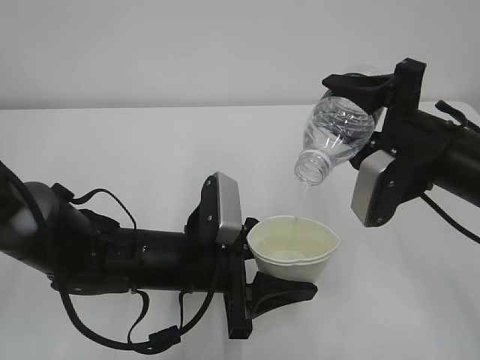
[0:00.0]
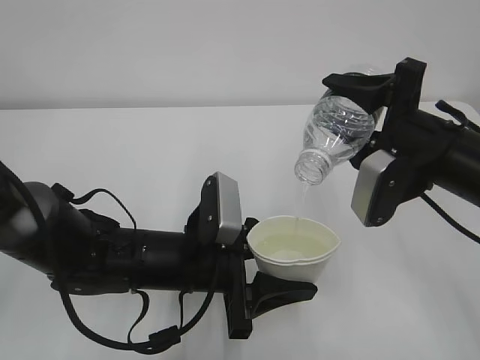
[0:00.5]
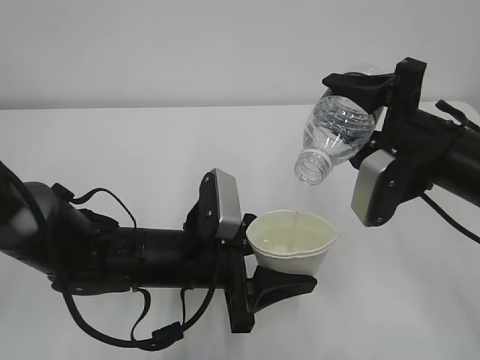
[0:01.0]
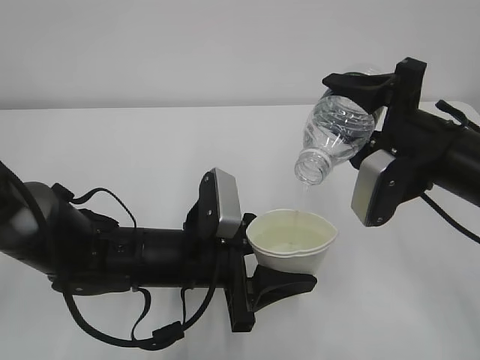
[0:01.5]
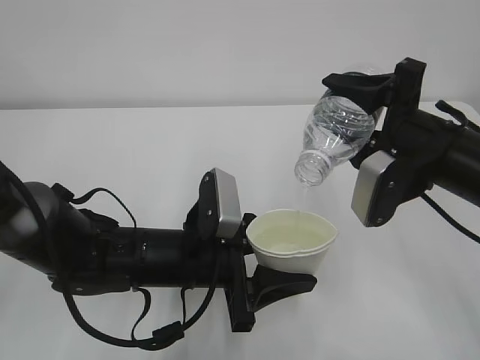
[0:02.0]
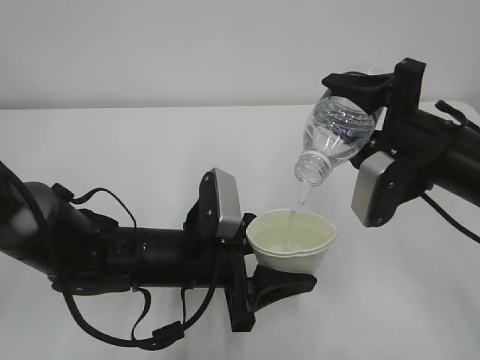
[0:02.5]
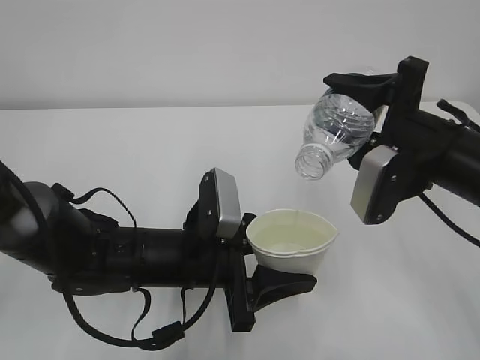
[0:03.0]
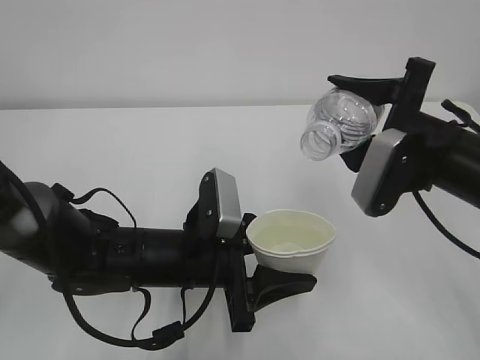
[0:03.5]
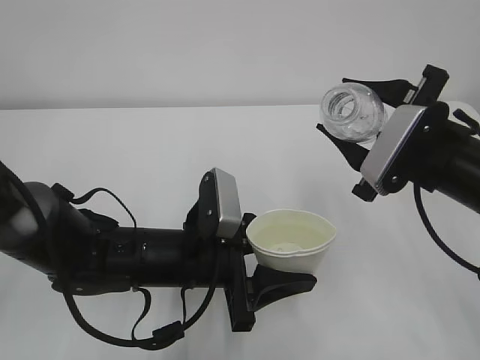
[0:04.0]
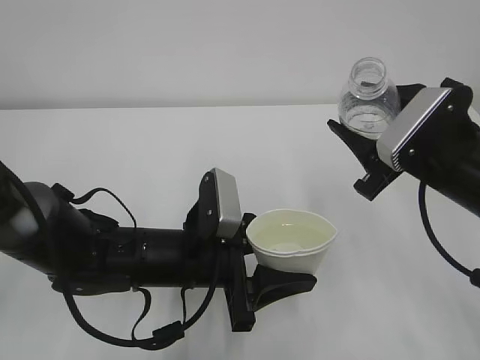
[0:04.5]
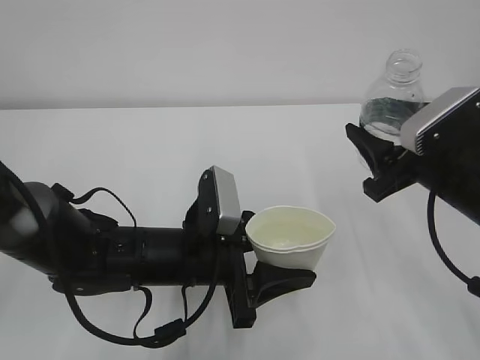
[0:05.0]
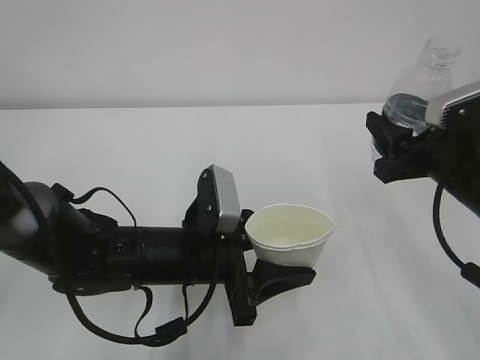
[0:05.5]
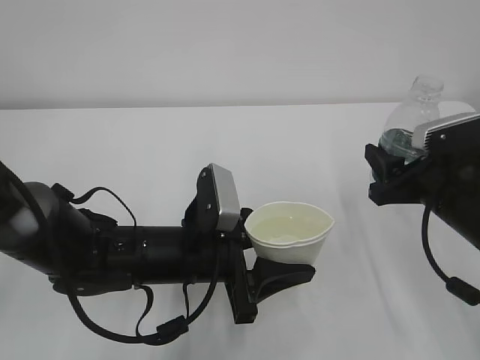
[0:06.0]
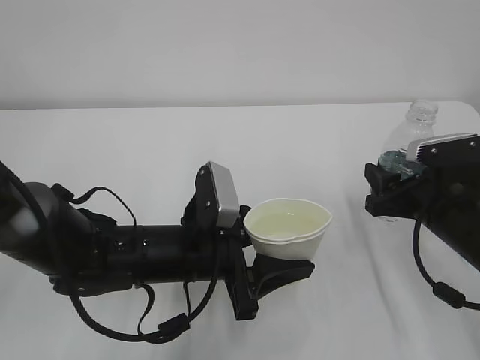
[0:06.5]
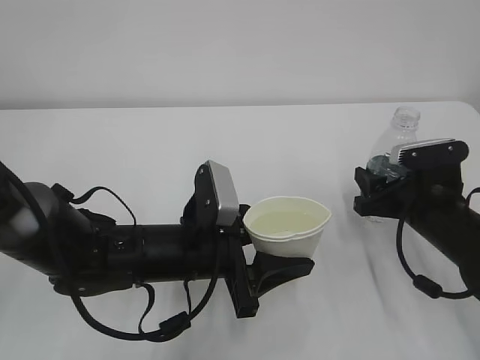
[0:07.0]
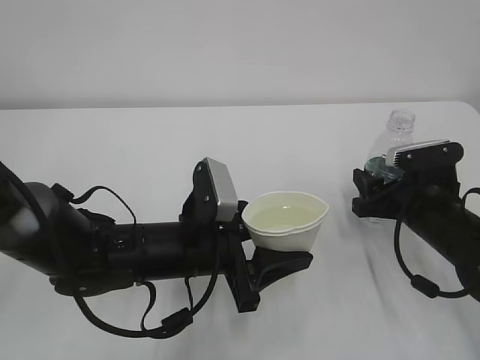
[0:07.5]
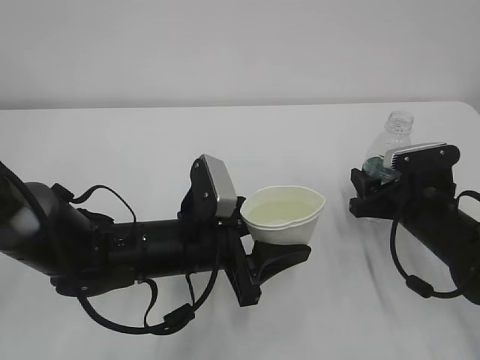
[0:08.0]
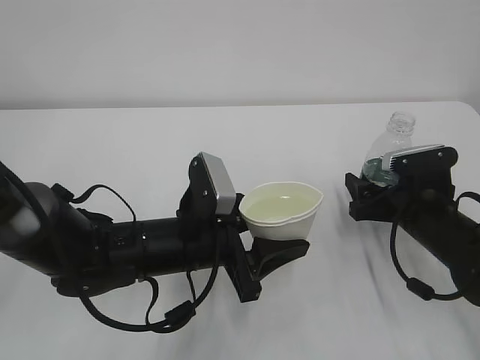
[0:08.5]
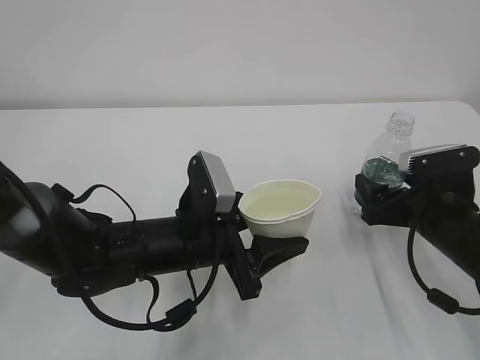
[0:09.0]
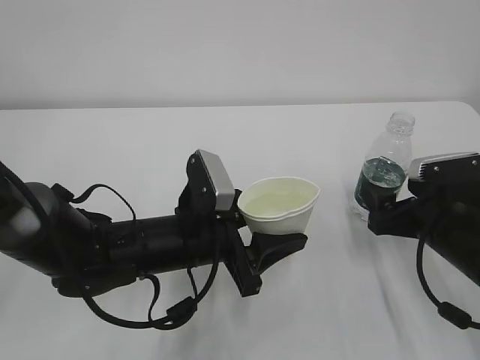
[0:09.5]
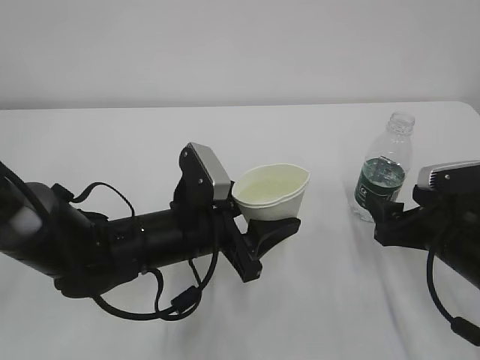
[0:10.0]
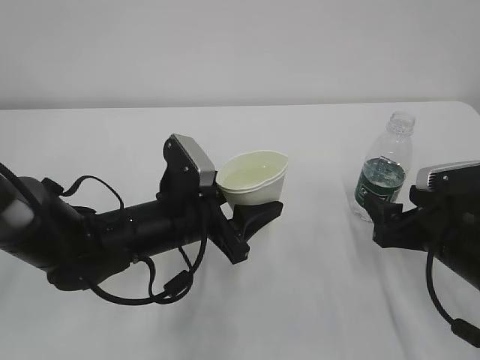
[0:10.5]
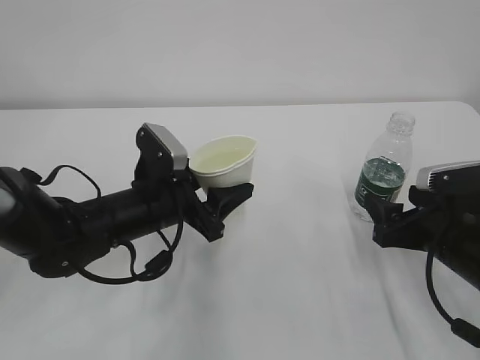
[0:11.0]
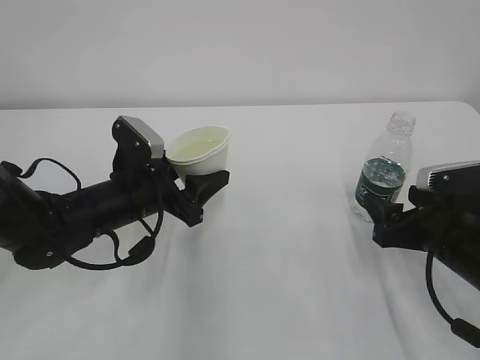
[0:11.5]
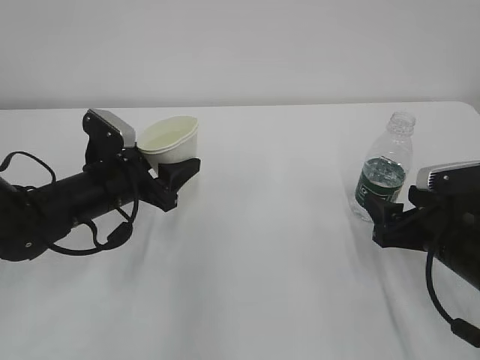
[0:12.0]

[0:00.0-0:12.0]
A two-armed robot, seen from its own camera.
0:00.0 to 0:02.0: Both grippers stay put.
0:04.0 to 0:06.0: The right gripper shifts roughly 5 cm downward.
0:06.0 to 0:08.0: The right gripper travels downward by roughly 5 cm.
0:08.0 to 0:10.0: The right gripper heads backward, covering roughly 5 cm, and opens.
0:10.0 to 0:12.0: The left gripper travels to the left and forward by roughly 15 cm.

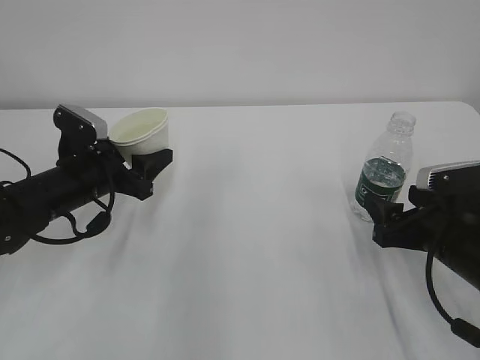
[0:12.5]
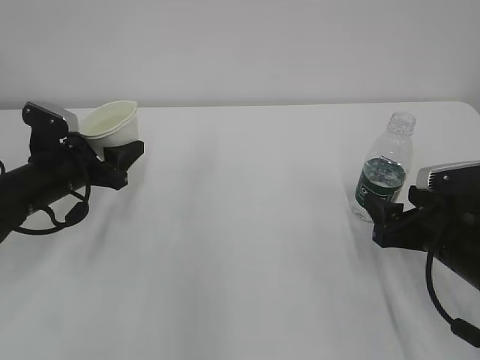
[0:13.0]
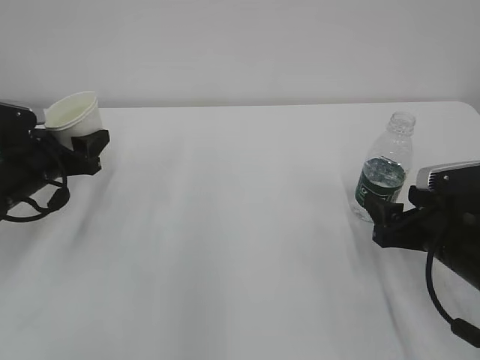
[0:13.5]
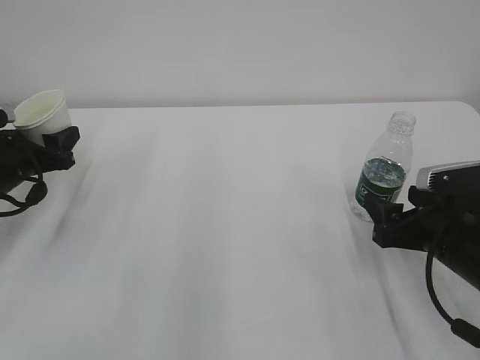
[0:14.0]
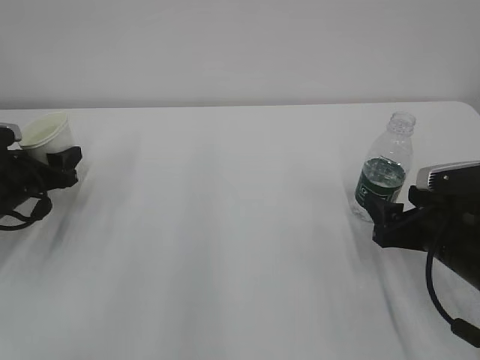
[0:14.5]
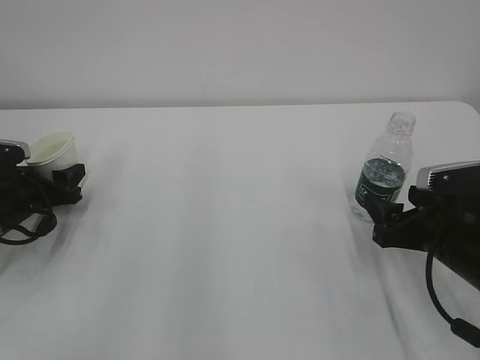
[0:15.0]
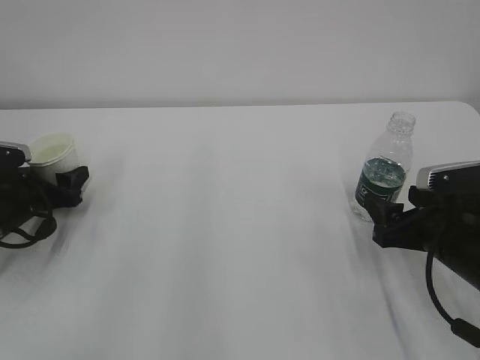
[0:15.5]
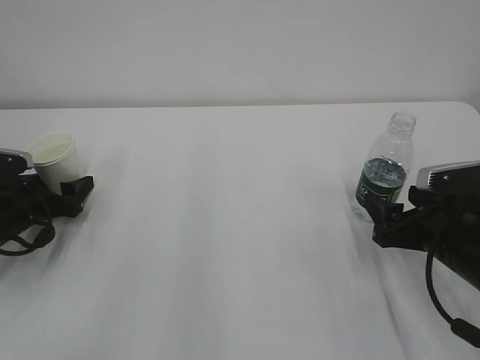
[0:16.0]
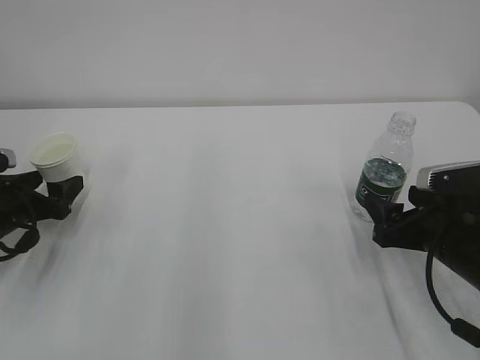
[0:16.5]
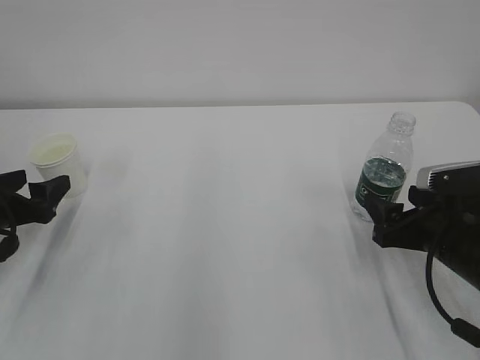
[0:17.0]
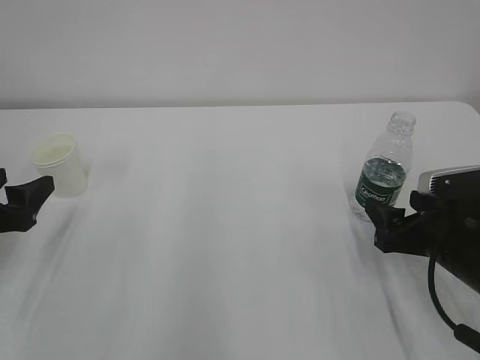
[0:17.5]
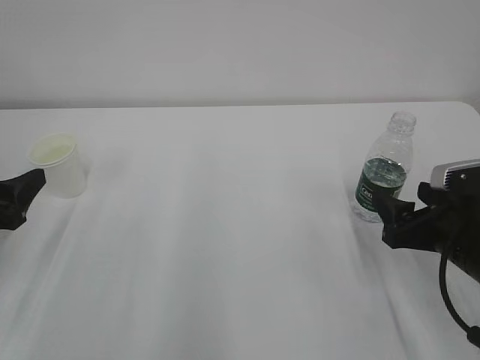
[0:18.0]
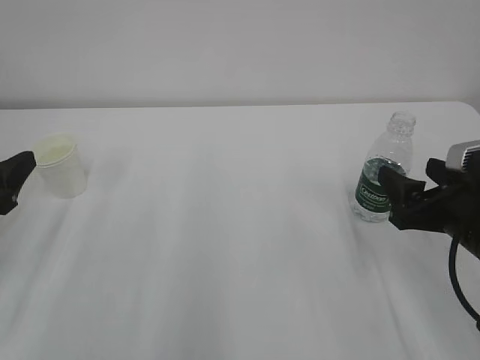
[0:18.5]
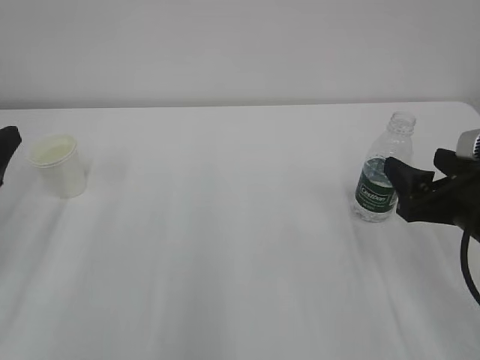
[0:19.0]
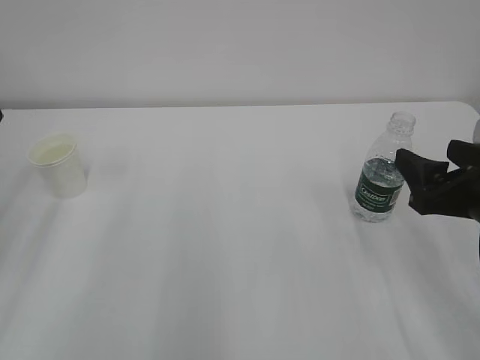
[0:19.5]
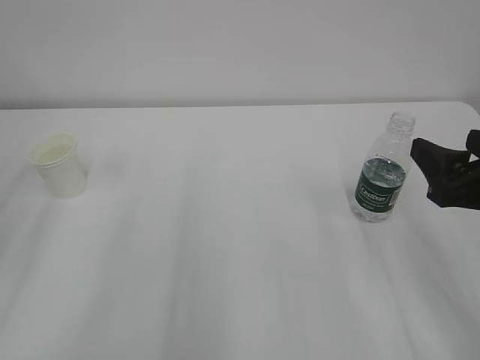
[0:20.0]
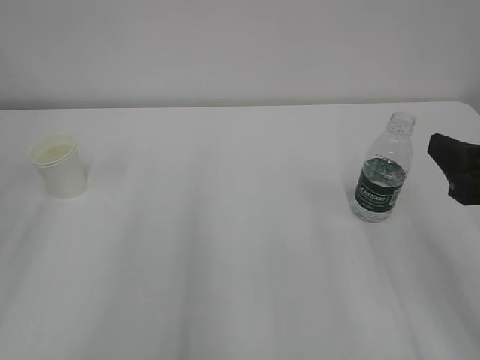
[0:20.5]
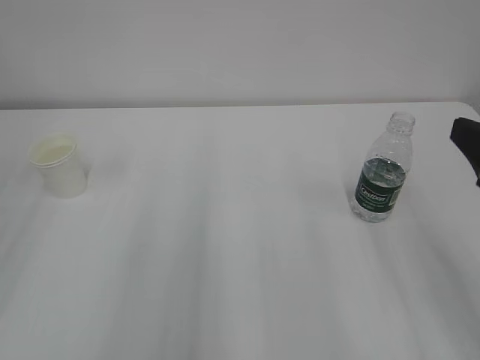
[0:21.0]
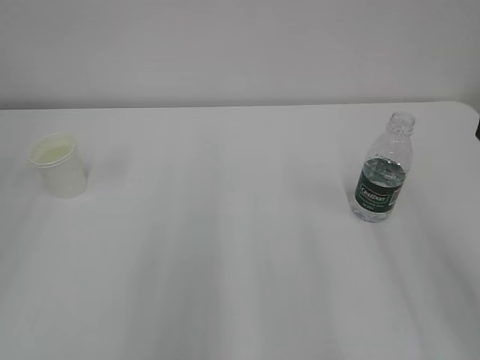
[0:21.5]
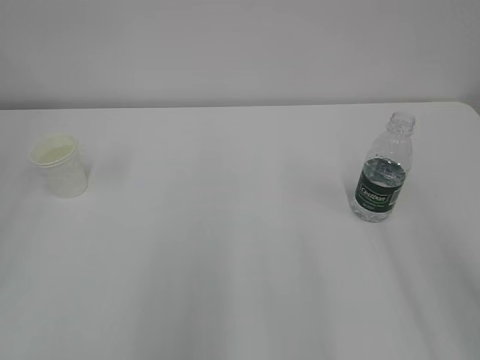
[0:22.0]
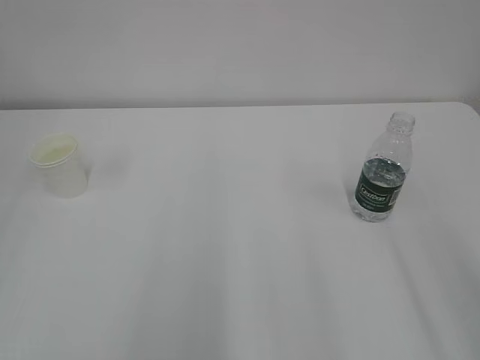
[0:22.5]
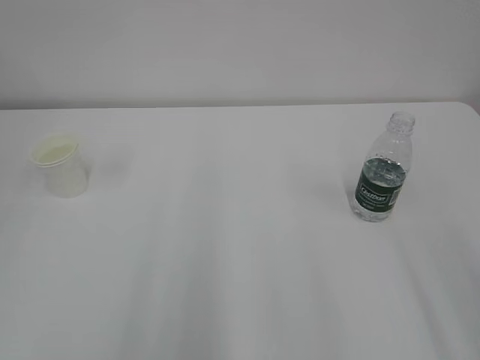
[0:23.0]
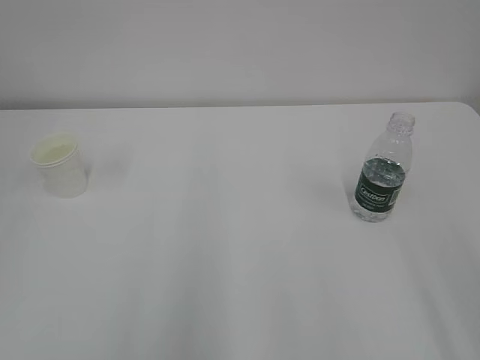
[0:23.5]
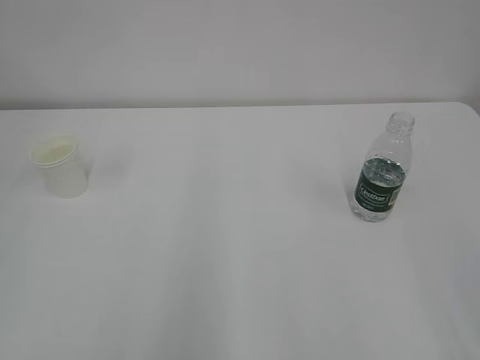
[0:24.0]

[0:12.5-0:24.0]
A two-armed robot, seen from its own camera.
0:12.5 to 0:14.5: The left gripper is displaced to the left by some 10 cm.
0:14.5 to 0:16.5: The left gripper opens its fingers.
0:16.5 to 0:18.5: The left gripper is displaced upward and backward by some 15 cm.
0:18.5 to 0:20.0: The grippers both shift upward by approximately 5 cm.
0:20.0 to 0:22.0: The right gripper heads backward and upward, covering roughly 10 cm.

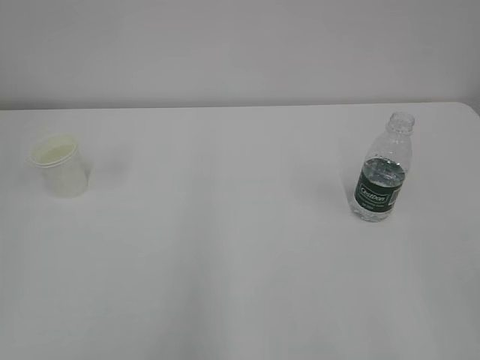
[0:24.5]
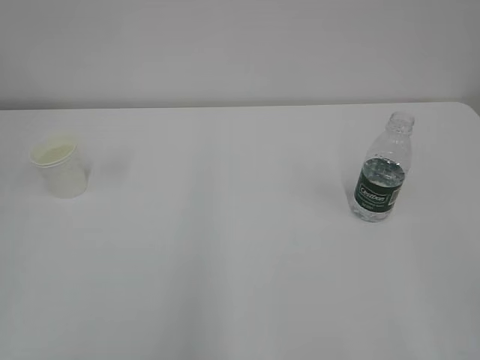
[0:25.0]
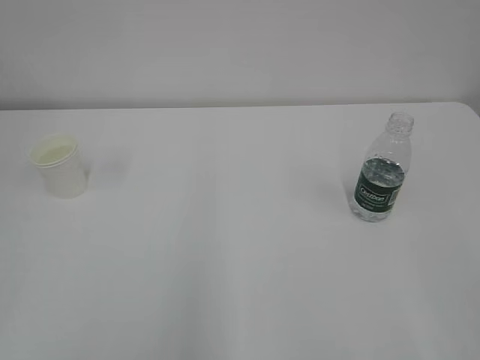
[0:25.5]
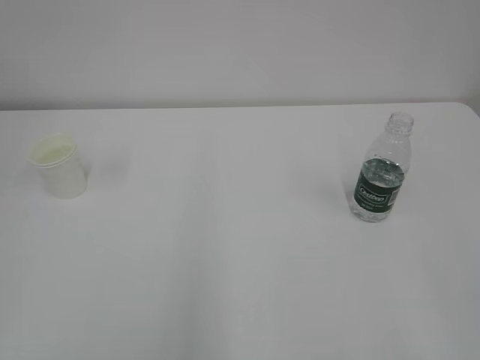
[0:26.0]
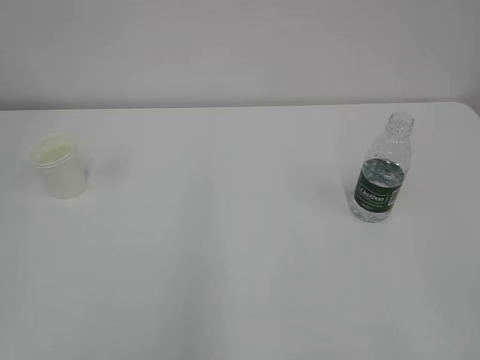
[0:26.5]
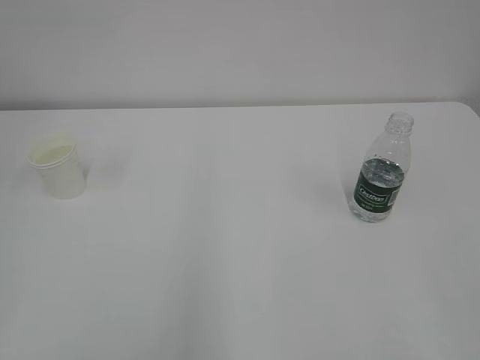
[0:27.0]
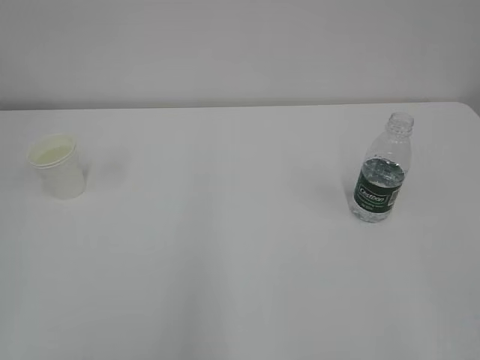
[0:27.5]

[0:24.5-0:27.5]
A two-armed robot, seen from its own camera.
0:26.0 to 0:27.5: The two grippers keep their place.
